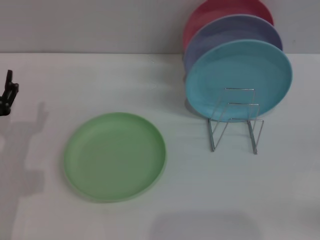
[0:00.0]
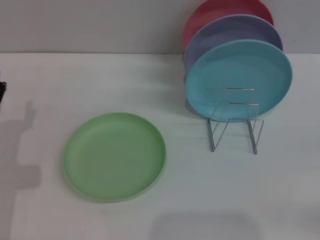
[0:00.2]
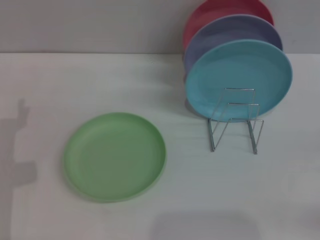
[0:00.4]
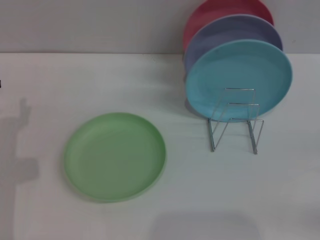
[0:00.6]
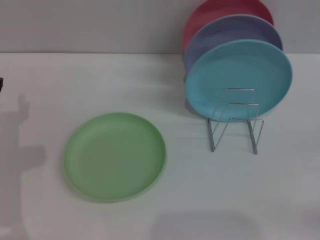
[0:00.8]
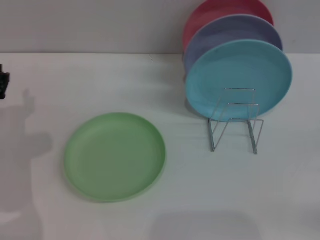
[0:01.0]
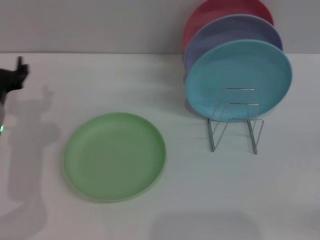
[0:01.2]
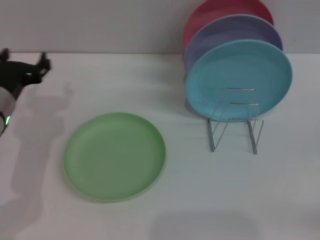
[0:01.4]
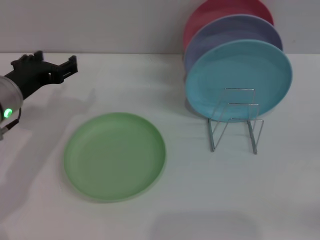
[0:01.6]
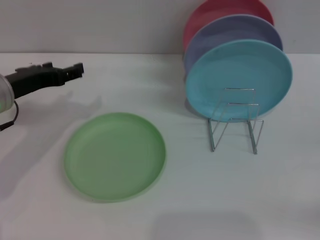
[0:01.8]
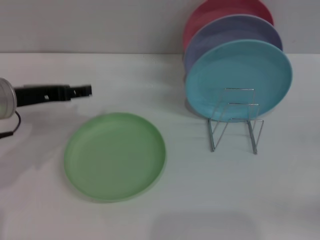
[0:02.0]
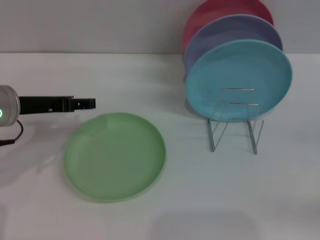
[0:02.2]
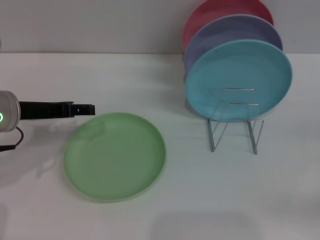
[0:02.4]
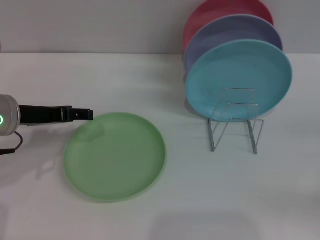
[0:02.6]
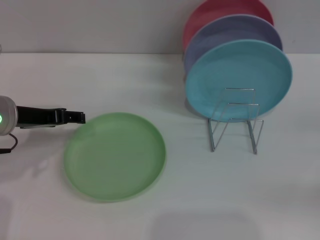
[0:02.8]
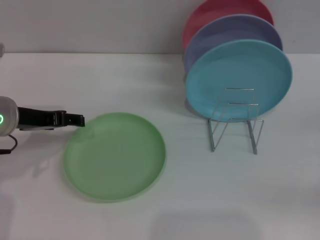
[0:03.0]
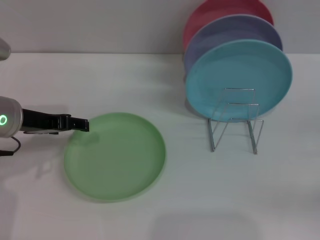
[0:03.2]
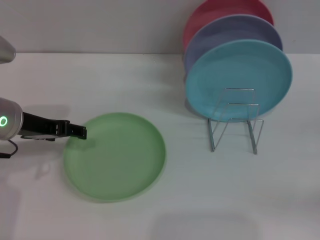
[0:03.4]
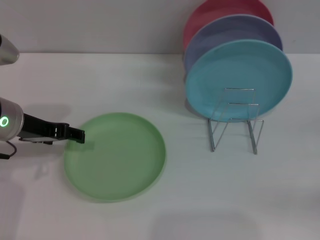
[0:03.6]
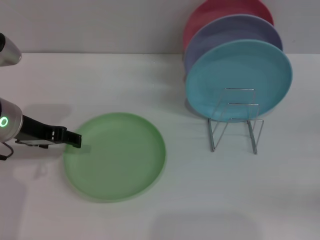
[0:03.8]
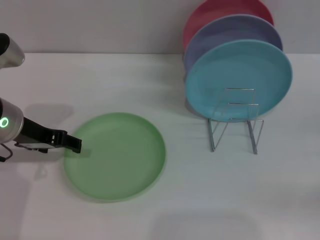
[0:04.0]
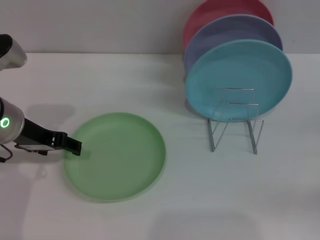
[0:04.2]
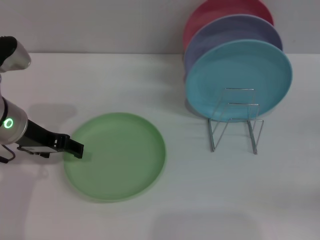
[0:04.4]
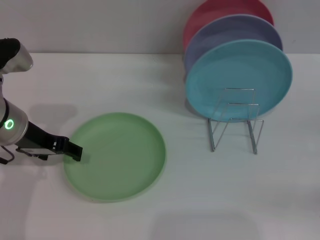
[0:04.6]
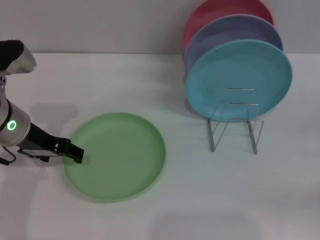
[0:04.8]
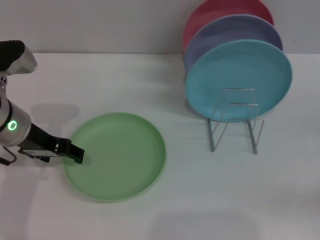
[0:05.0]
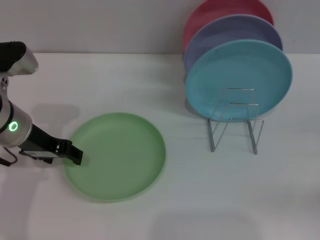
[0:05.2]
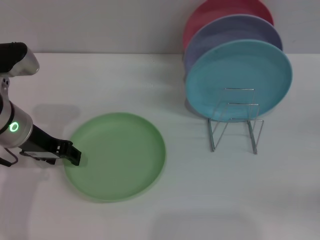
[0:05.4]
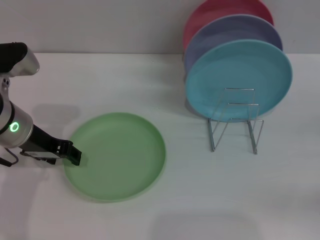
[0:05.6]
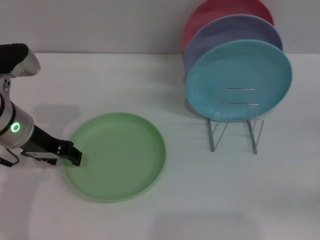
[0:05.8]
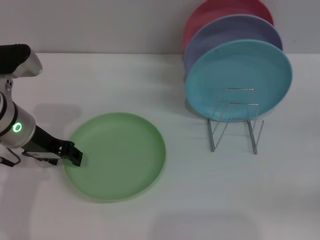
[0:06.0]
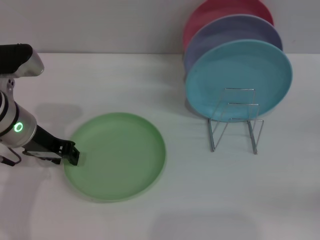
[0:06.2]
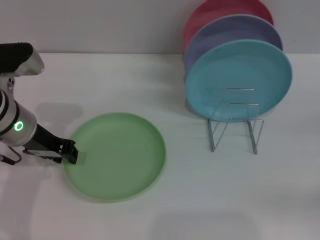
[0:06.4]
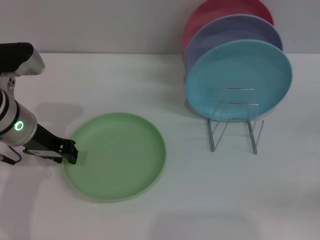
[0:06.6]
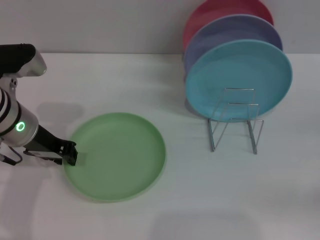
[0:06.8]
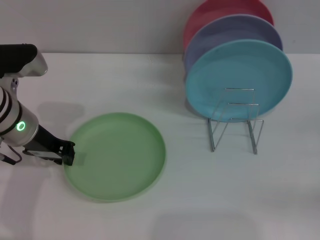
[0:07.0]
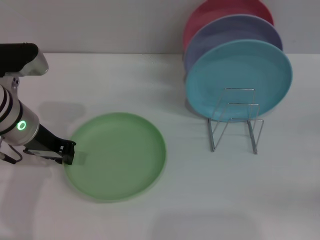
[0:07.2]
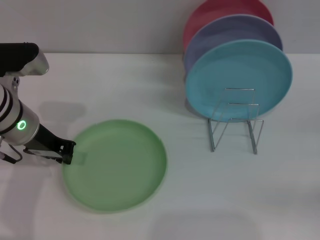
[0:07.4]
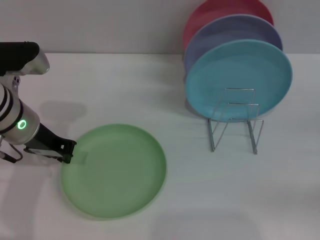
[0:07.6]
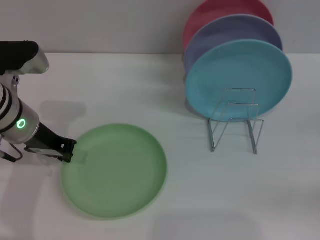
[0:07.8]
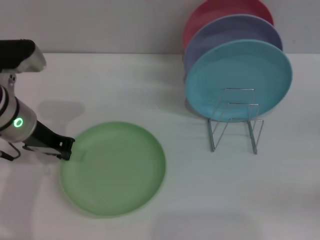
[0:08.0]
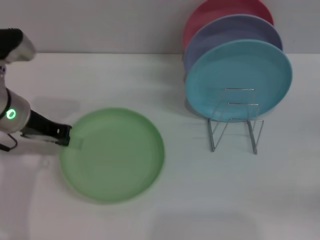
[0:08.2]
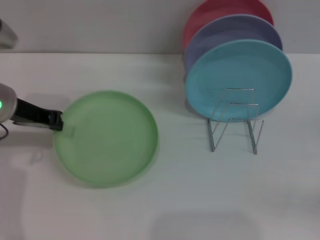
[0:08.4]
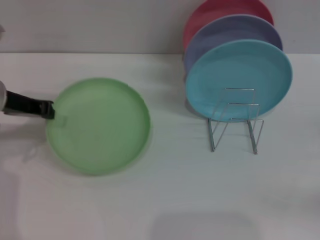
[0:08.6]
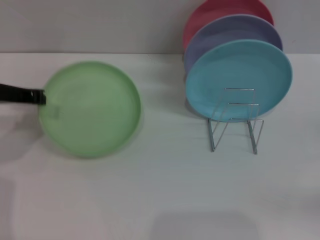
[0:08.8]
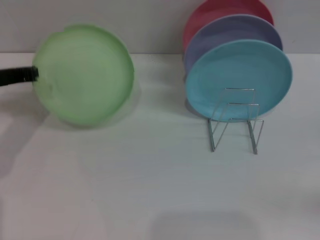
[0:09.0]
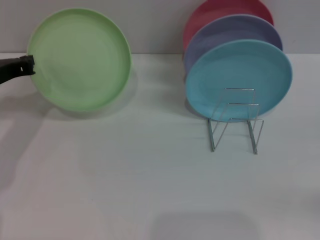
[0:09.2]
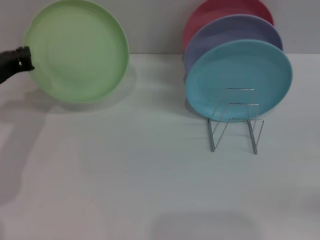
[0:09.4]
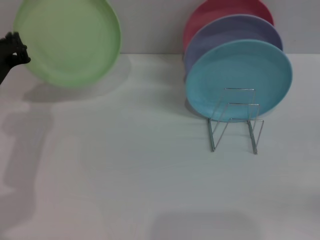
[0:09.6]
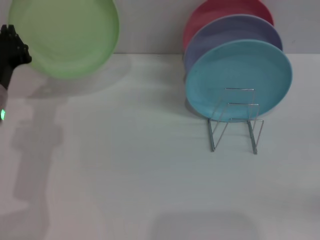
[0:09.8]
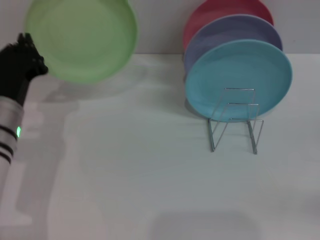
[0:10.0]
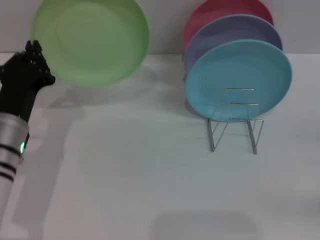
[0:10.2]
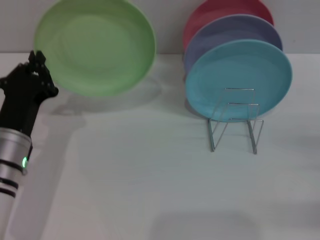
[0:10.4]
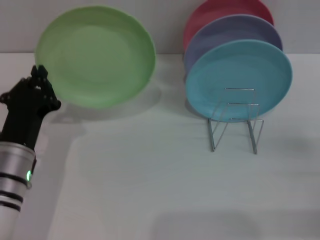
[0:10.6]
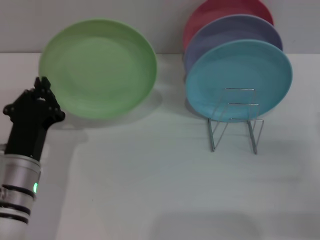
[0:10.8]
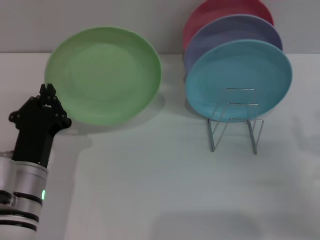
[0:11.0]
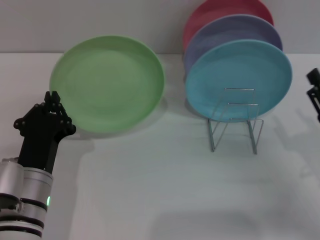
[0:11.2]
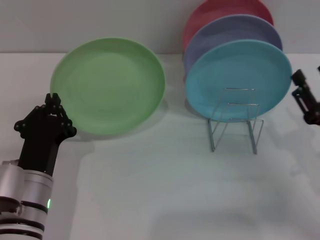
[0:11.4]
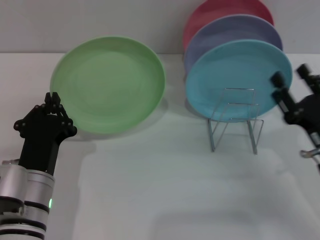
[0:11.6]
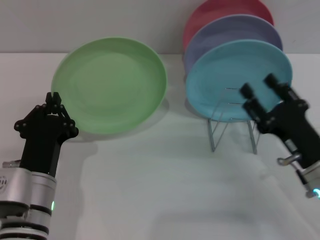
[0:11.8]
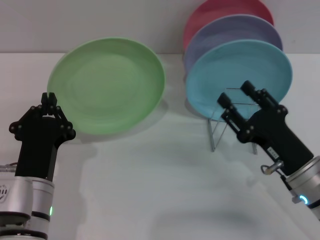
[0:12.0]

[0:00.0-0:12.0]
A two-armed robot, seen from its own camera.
Task of the whole recording: Grip the plate with one hand, pass it to the other, then set it on the shelf.
Step, 0:00.0 to 0:08.6: Pick up the plate with the left gripper.
0:00.0 to 0:01.6: The left gripper moves upward and forward, approximately 10 cm.
0:03.0 to 0:04.4: There are only small adjustments of the grippers.
0:04.4 to 0:06.0: The left gripper closes up.
0:06.0 to 0:07.6: The left gripper closes.
0:07.6 to 0:09.0: The left gripper moves to the left, some 5 cm.
0:09.0 to 0:10.4: The left gripper is displaced backward, downward and to the right by some 15 cm.
0:10.4 to 0:12.0: The right gripper is displaced to the left by approximately 15 cm, while the left gripper heads backward, covering some 5 cm.

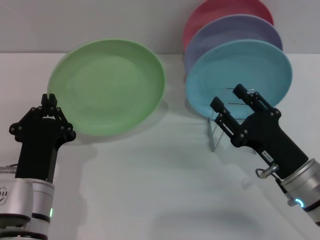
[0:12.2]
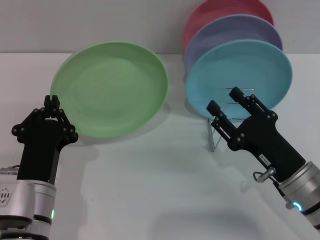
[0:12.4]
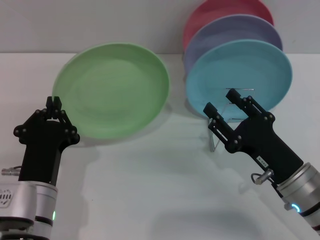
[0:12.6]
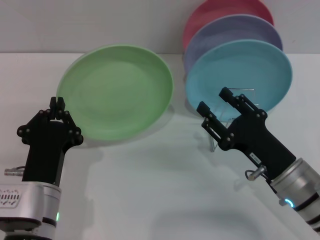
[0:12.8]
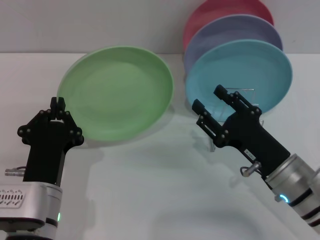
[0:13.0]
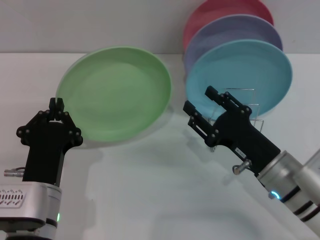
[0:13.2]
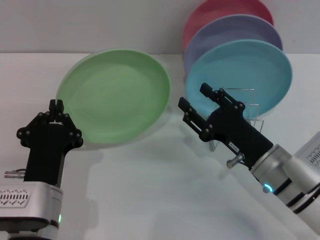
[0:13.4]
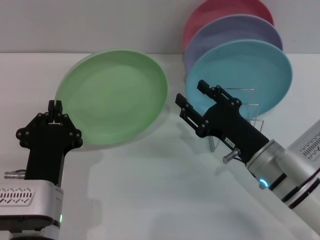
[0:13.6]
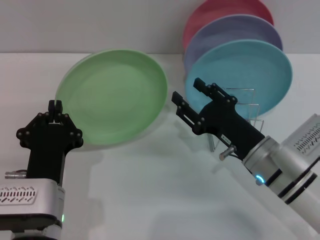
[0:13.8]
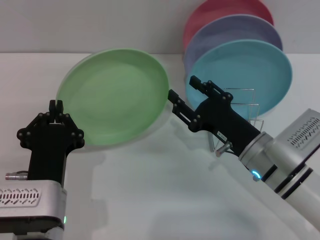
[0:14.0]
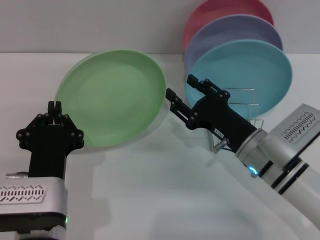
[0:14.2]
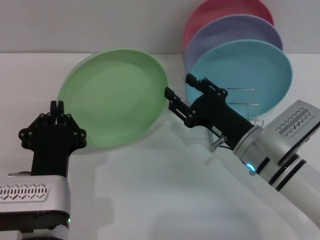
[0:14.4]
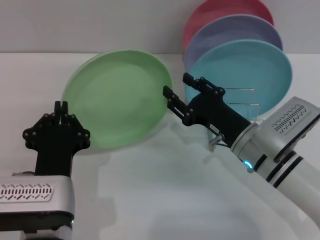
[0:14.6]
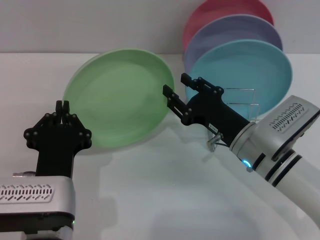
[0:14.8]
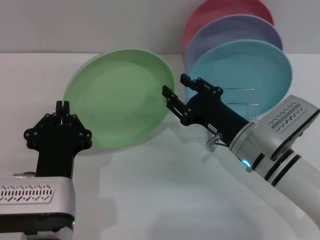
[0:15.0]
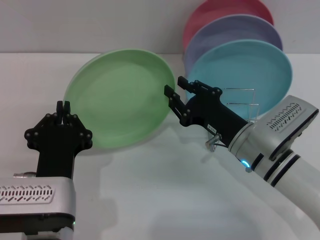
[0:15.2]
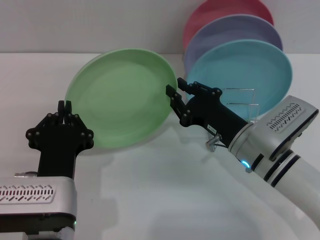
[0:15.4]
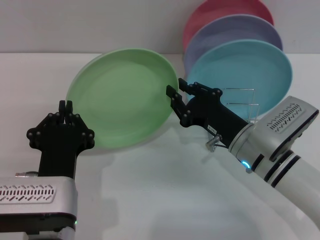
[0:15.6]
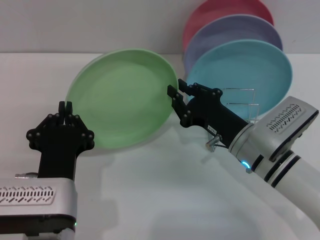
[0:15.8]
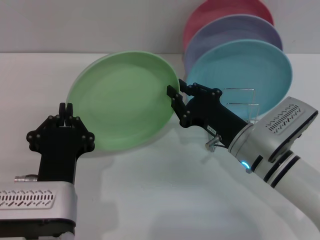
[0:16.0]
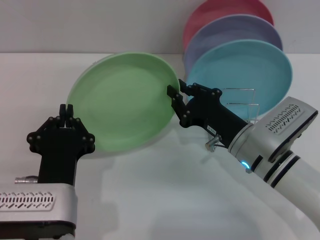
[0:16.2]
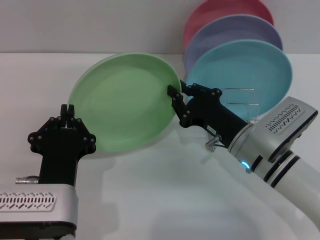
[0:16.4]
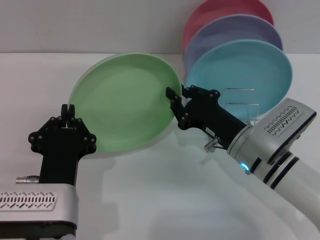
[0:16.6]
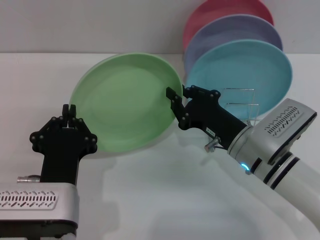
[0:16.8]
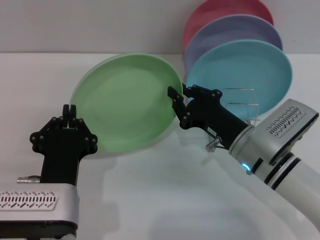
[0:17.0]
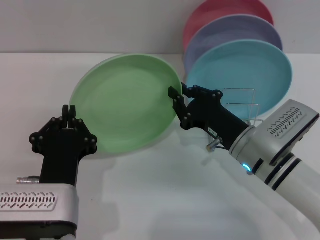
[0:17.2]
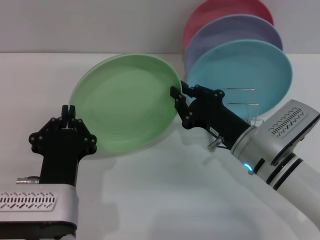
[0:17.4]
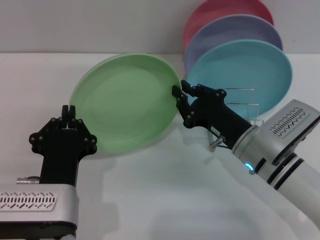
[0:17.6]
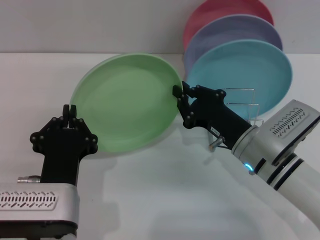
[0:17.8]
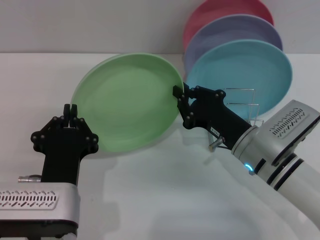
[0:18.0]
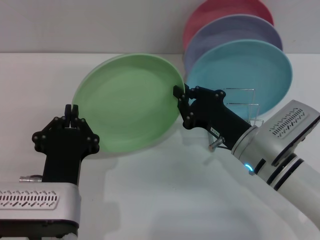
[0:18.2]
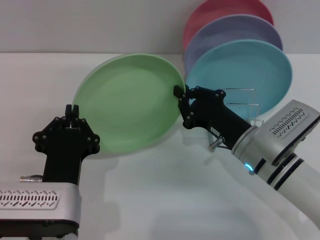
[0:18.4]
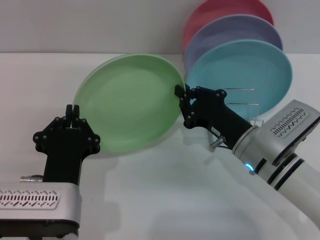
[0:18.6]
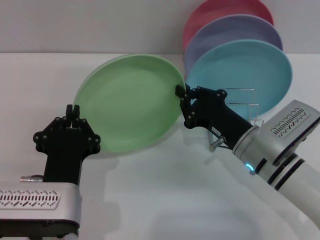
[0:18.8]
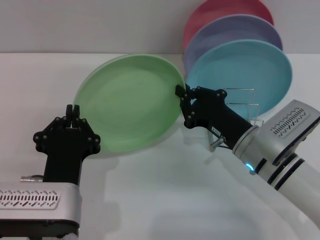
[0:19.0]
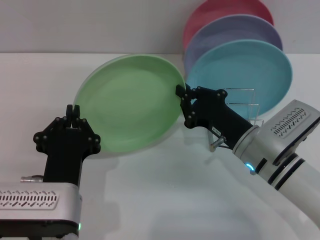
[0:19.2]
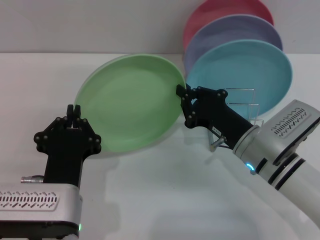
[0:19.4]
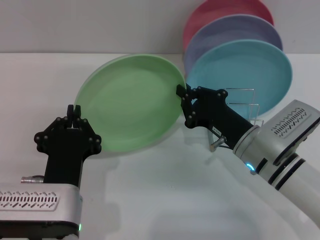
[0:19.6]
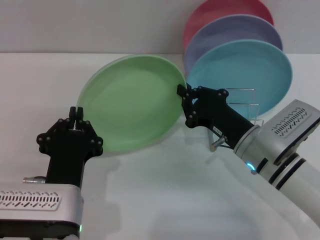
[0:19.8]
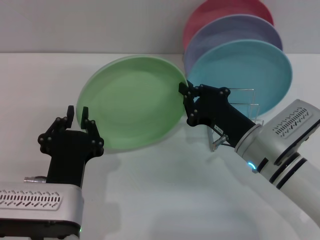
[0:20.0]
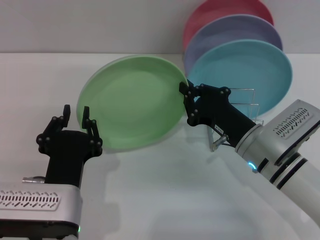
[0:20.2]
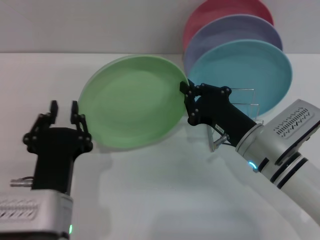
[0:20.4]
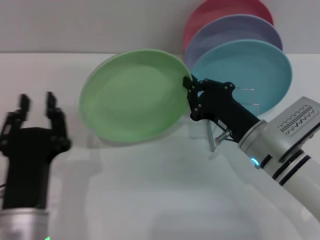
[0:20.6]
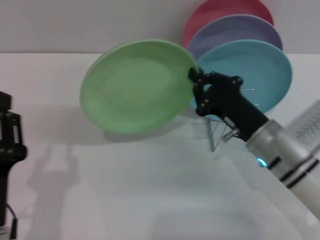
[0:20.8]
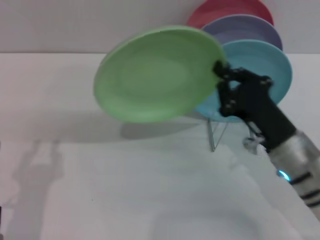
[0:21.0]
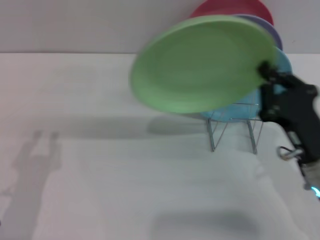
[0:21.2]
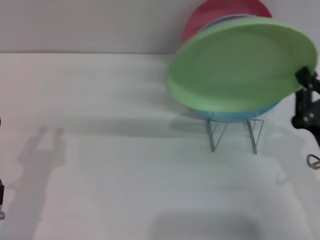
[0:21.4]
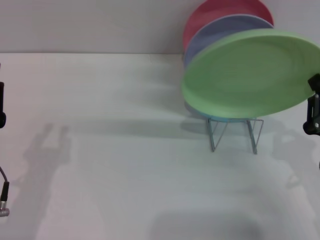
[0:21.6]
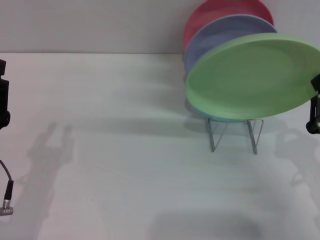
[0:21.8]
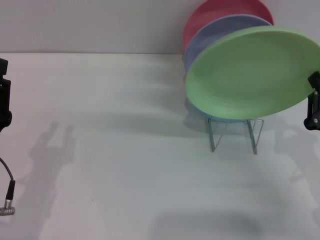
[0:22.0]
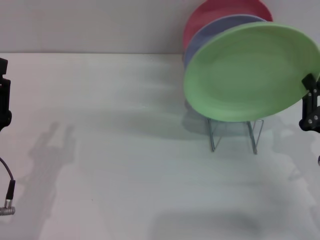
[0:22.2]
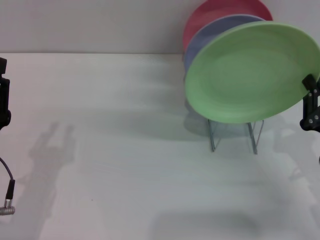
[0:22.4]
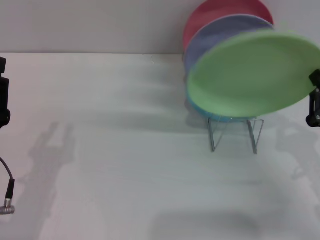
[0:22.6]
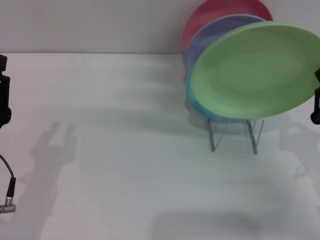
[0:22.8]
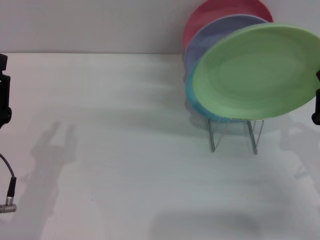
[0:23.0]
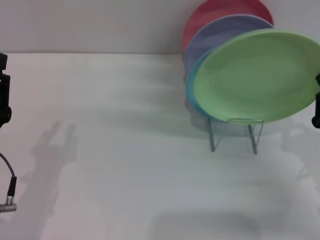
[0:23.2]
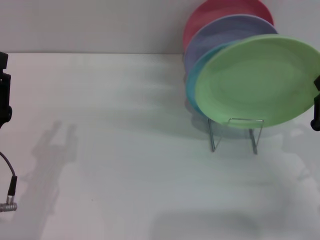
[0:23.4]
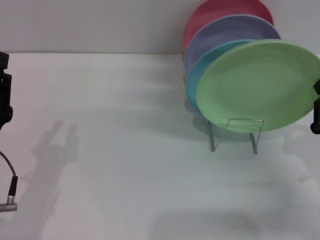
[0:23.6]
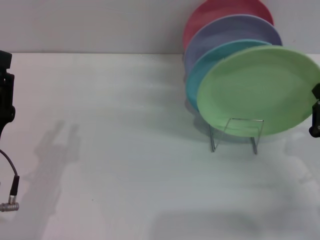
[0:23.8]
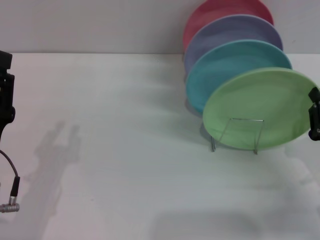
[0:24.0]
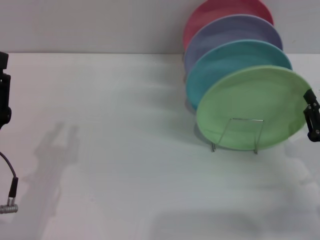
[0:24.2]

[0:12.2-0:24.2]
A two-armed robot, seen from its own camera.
Task of the whole recording: Grip the plate with one hand, pass it to the other, then set it on the shelf.
Step, 0:12.2 to 0:20.4: Pass the plate from the left gripper to the right gripper.
0:12.2 to 0:13.8: The right gripper changes place by approximately 5 cm.
0:13.8 to 0:15.2: The grippers make only small movements.
0:15.2 to 0:16.6: The right gripper closes its fingers.
0:16.6 to 0:19.8: Neither gripper changes place.
0:19.8 to 0:21.2: The left gripper goes roughly 10 cm to the left, and opens its fingers. The right gripper heads backward and to the right, covering approximately 10 cm.
0:21.2 to 0:22.6: The right gripper travels to the right by some 5 cm.
0:22.6 to 0:24.2: There are only small adjustments of the grippers.
